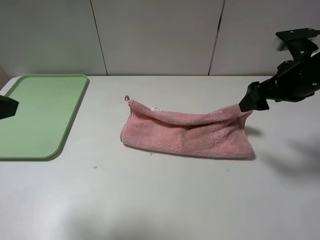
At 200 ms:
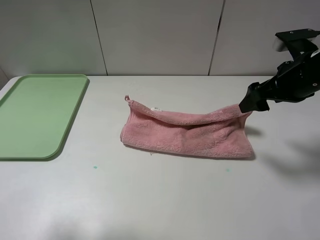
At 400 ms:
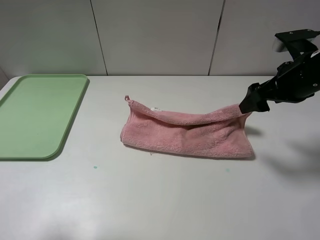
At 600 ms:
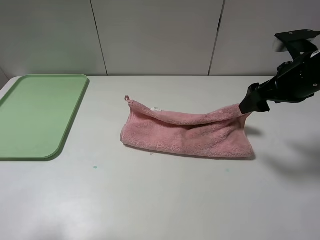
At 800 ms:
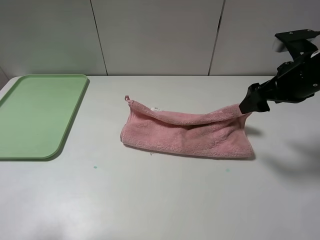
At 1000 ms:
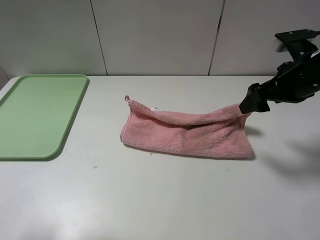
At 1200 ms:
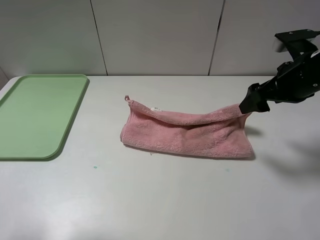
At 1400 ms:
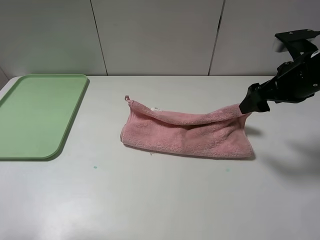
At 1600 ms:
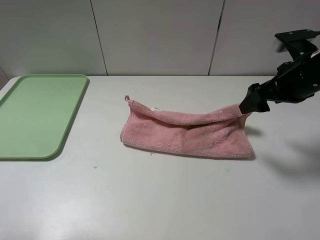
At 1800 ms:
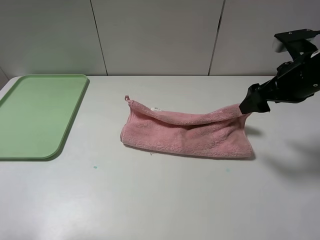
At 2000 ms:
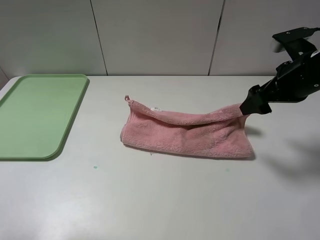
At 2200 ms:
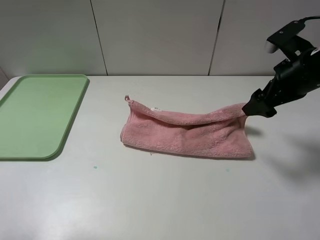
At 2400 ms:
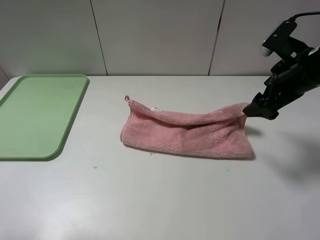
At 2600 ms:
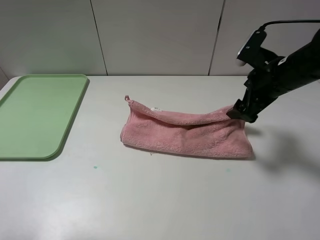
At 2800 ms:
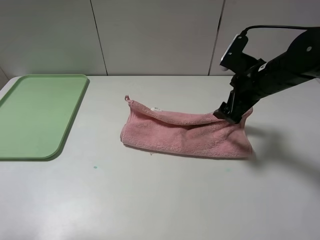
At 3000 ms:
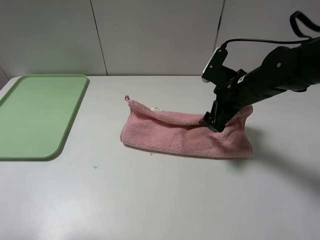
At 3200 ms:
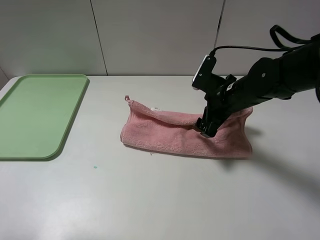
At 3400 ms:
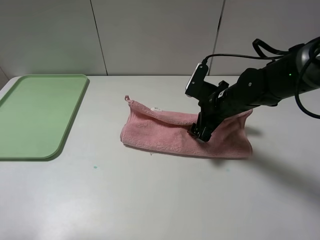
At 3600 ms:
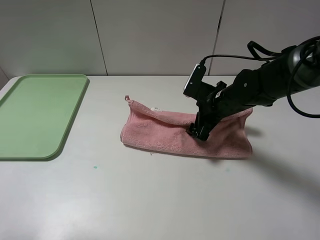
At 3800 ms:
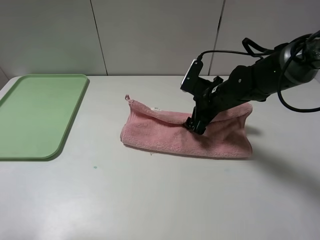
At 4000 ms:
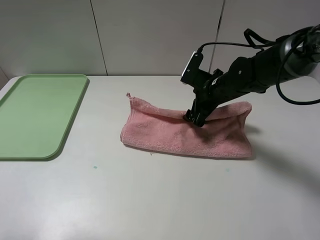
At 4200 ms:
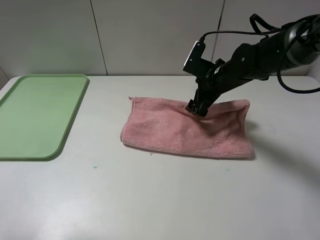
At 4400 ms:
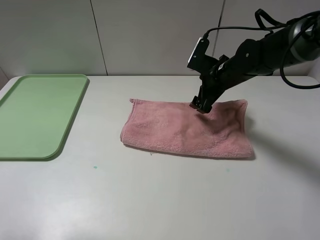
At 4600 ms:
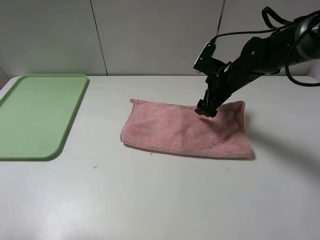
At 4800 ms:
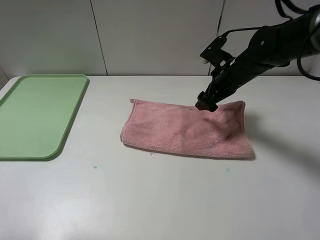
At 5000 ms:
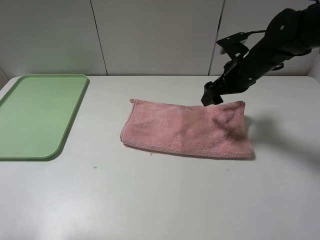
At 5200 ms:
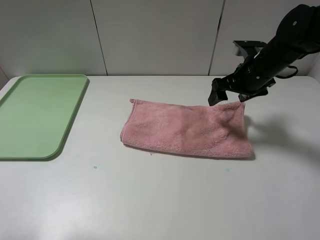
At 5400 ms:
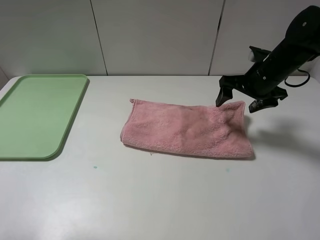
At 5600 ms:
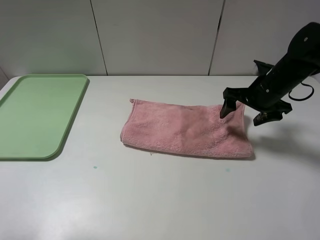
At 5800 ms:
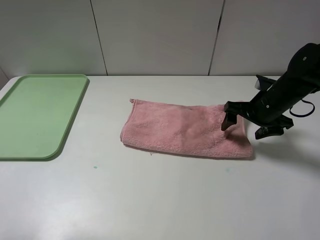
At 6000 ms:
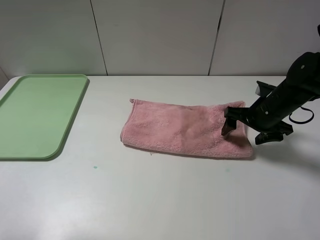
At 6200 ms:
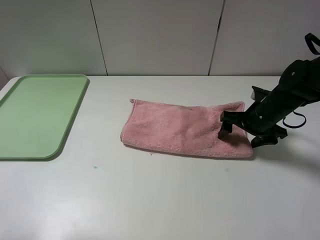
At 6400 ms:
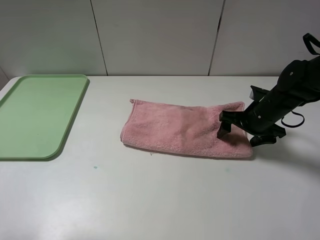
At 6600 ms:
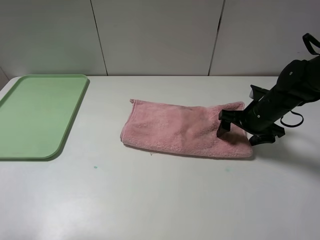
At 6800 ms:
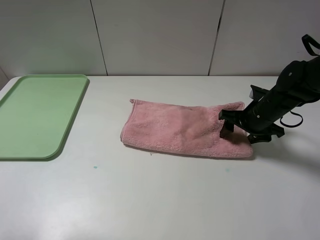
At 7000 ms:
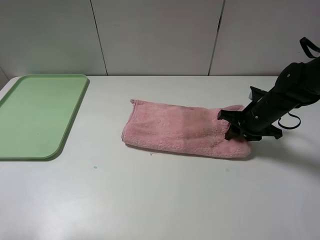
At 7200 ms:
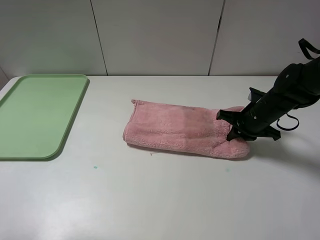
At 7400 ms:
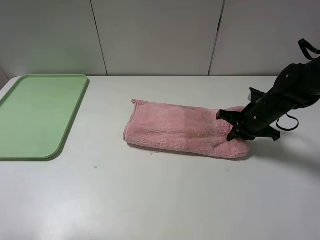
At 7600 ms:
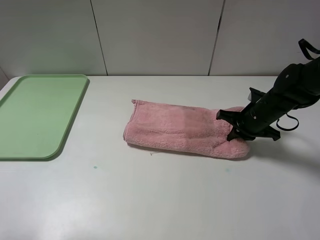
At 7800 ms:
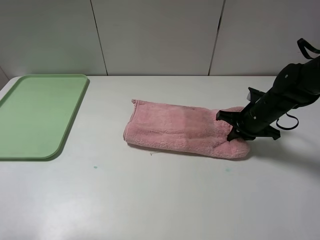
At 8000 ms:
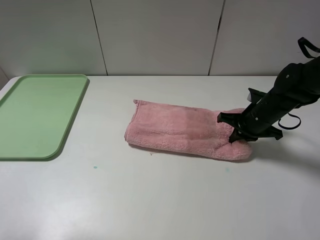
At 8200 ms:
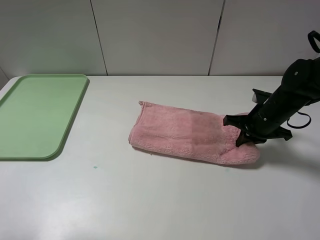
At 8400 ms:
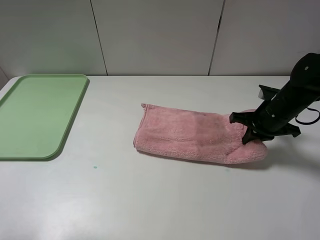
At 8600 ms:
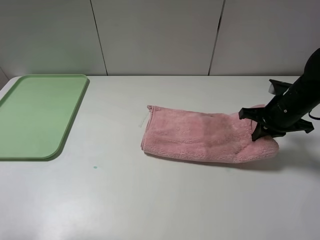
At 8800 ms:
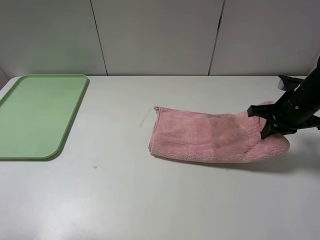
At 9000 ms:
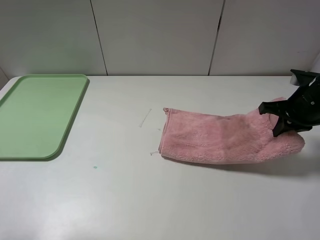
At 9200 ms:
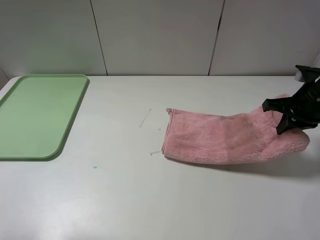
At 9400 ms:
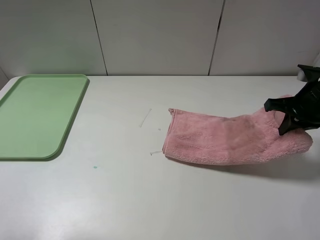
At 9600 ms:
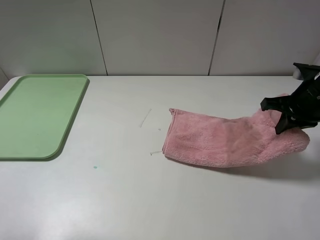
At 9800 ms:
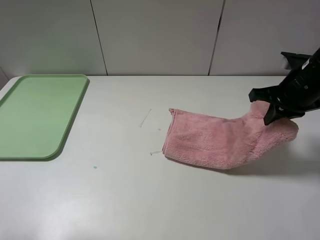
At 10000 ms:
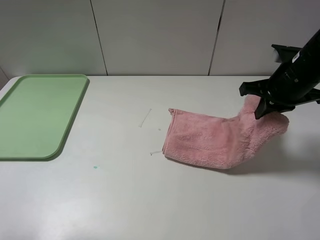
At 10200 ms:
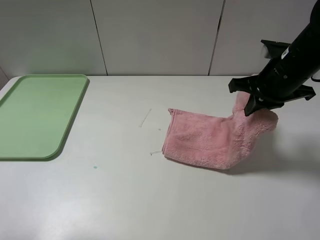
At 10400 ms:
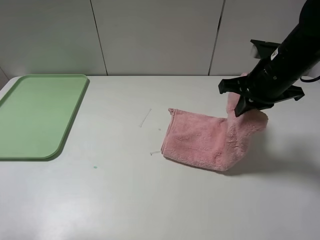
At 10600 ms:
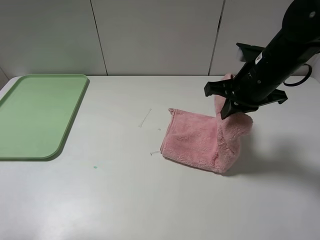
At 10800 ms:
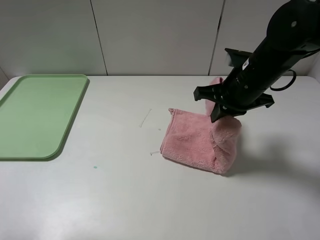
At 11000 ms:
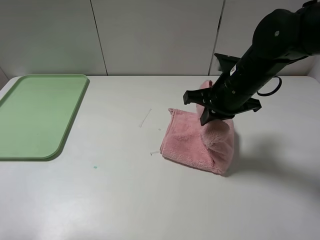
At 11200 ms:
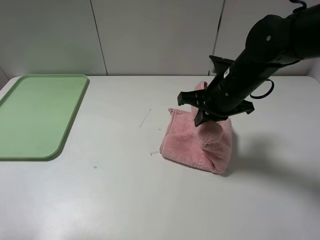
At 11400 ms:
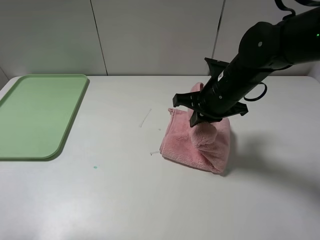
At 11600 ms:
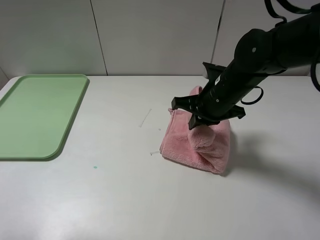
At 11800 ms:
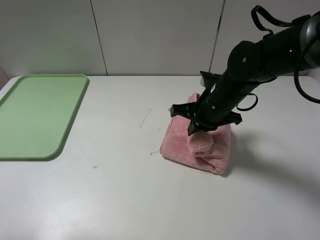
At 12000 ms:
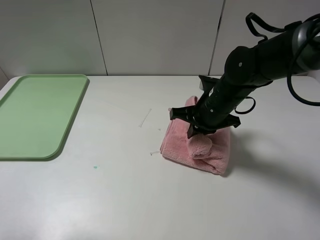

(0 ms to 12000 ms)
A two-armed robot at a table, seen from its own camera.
Step, 0 ms - 4600 ms: Fold the pink towel upwards.
0 ms - 1600 ms: The left gripper moves to the left, about 5 cm.
1600 ms - 3000 ms: The right gripper moves to the left and downward, about 10 cm.
3000 ms - 4400 ms: The right gripper travels forward by some 5 cm.
4400 ms - 6000 ms: The right gripper shifts roughly 10 cm to the right and backward.
6000 ms - 7600 ms: The right gripper closes up.
7600 ms - 9000 ms: The right gripper goes some 10 cm upward and to the right.
9000 ms - 10400 ms: The right gripper goes some 10 cm to the left and upward.
10400 ms - 12000 ms: The right gripper is displaced downward and to the left by about 10 cm.

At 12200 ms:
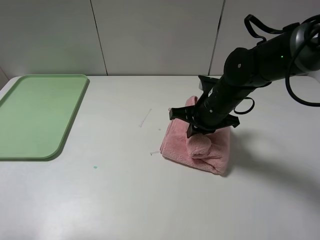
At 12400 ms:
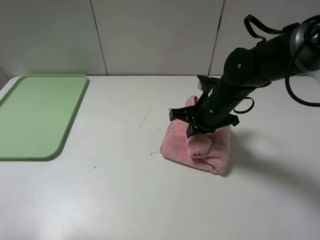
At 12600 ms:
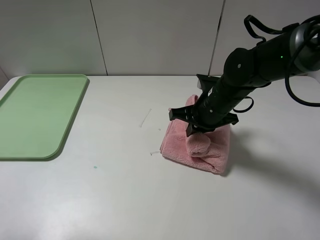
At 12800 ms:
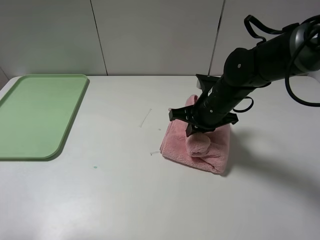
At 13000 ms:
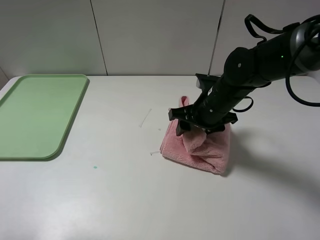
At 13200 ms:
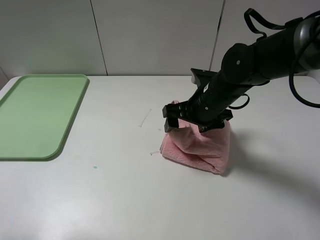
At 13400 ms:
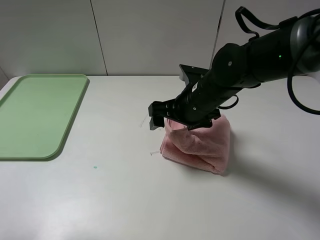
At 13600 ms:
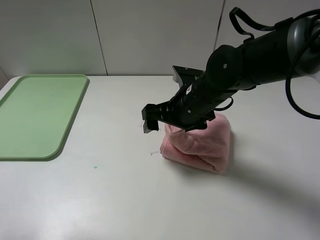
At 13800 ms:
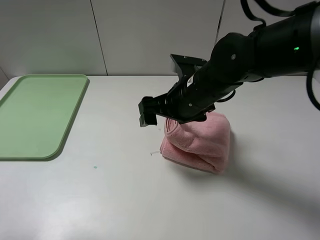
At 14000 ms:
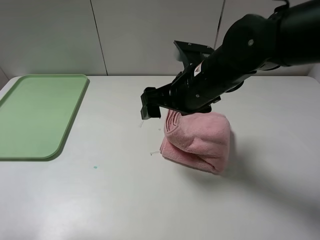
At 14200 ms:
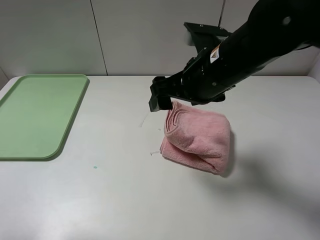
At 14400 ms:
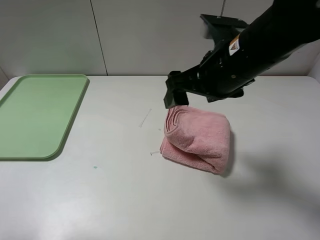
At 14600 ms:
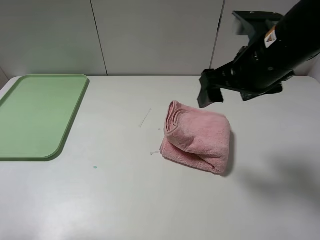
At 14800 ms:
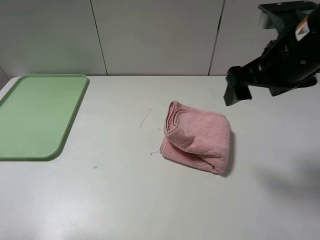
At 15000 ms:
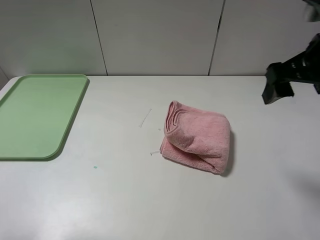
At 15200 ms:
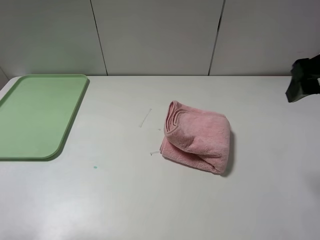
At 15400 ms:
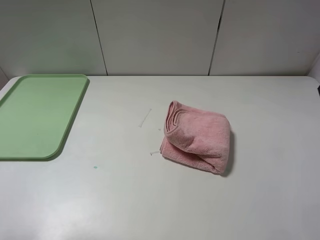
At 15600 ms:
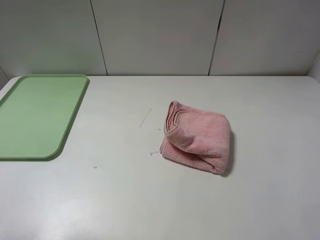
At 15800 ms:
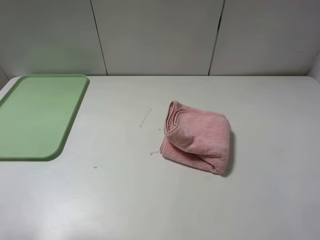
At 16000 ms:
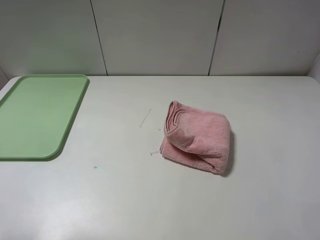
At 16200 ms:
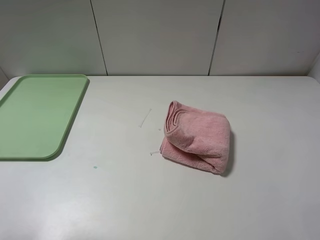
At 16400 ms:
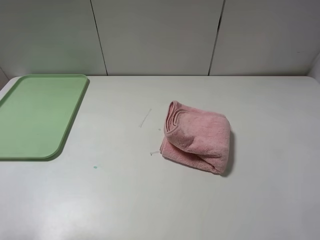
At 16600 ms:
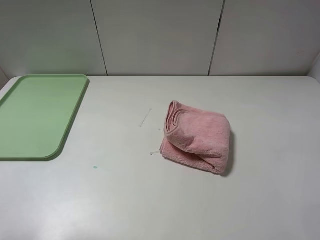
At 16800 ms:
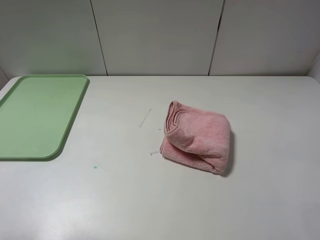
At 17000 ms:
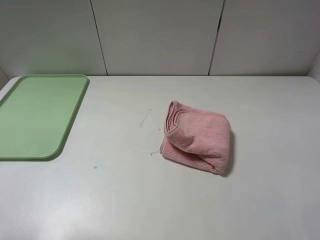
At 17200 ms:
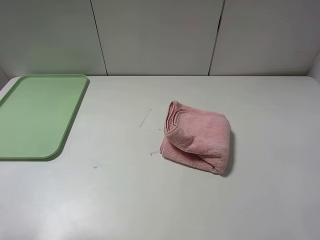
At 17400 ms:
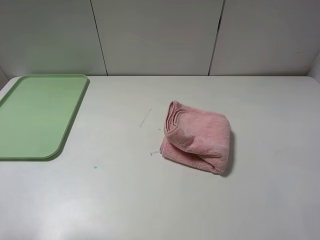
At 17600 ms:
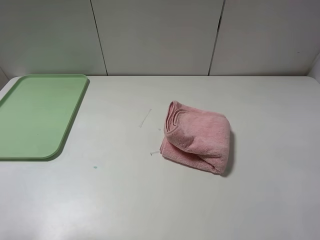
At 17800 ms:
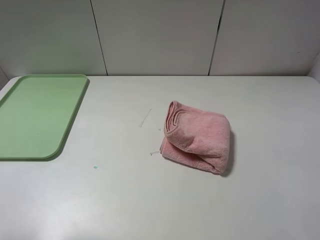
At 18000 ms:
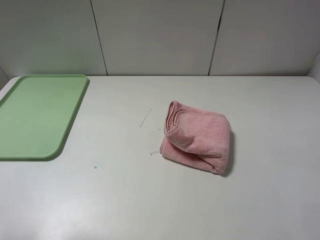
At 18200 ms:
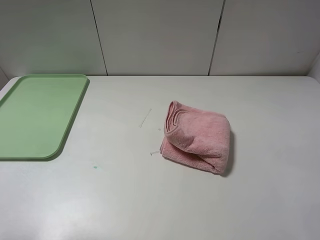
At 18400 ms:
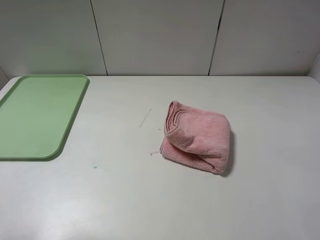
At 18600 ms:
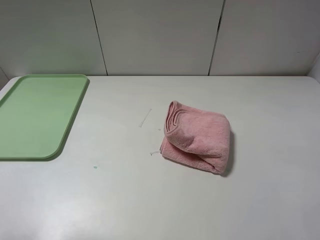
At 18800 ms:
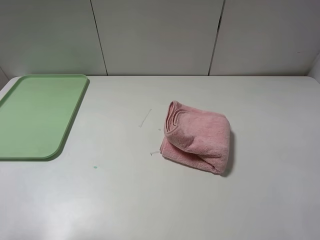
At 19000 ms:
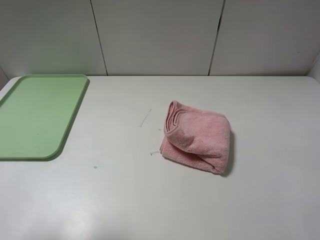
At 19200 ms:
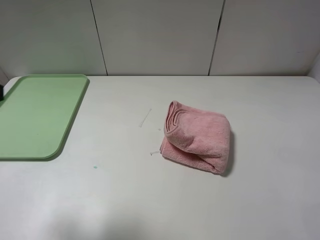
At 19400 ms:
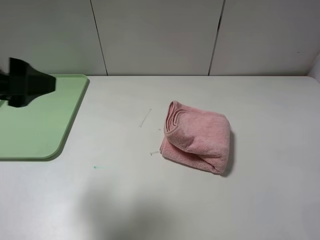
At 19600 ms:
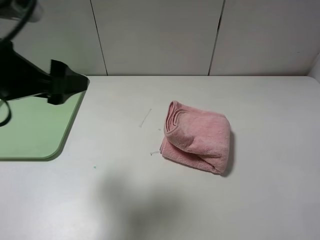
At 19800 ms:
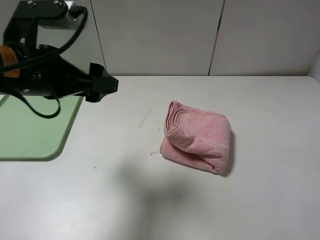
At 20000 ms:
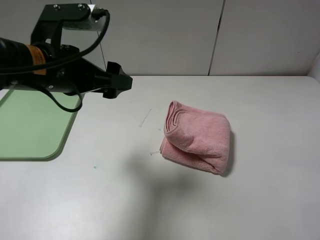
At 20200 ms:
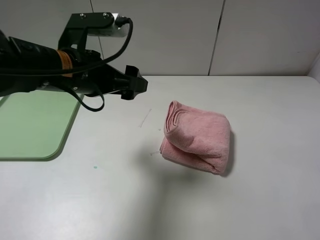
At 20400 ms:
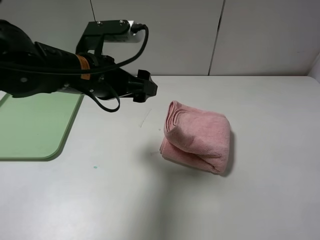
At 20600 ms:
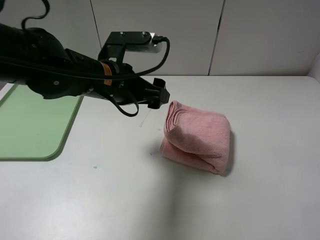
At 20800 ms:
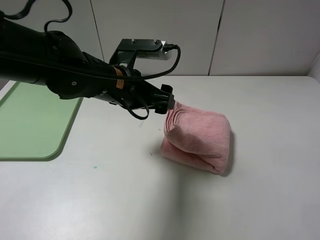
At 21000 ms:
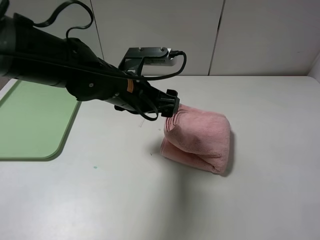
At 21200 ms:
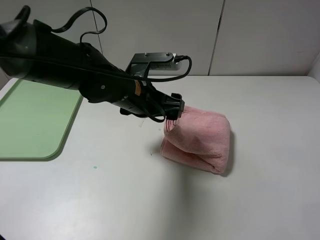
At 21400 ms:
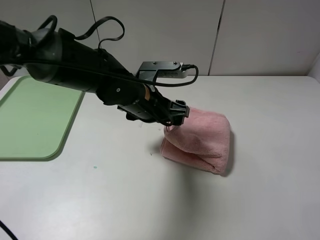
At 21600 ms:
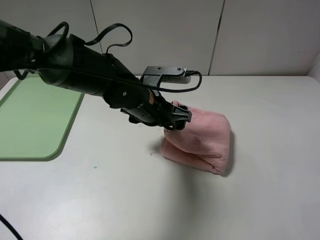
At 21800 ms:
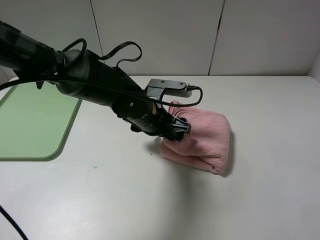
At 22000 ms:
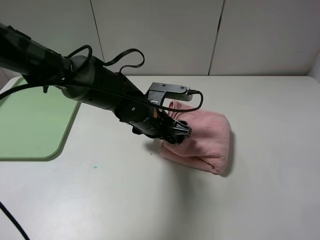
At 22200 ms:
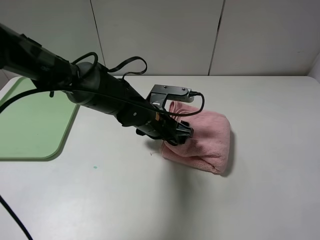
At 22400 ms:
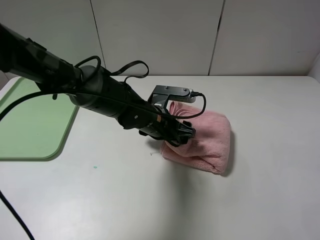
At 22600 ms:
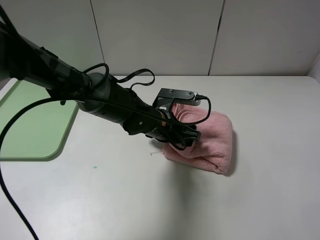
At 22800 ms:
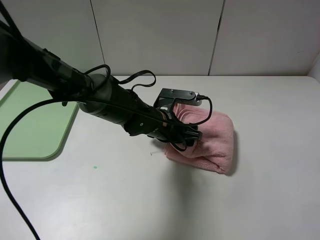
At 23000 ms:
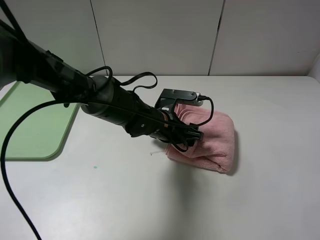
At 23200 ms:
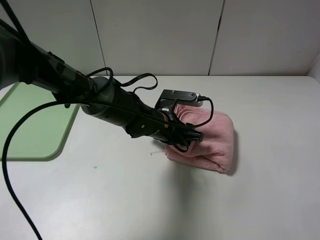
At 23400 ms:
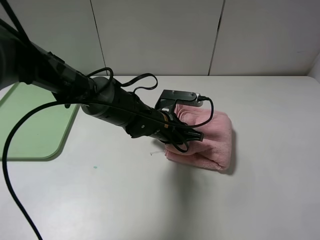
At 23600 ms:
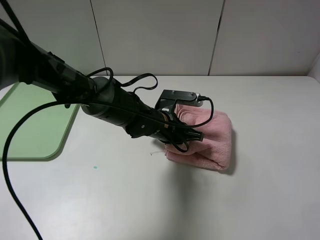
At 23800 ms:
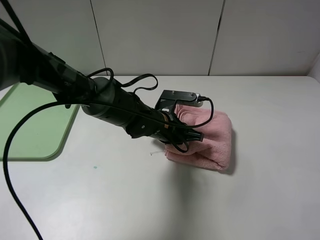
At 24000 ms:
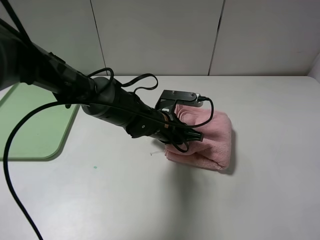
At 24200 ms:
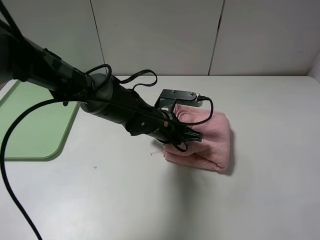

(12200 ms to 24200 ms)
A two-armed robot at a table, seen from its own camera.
12200 ms - 13800 ms: The right gripper goes roughly 10 cm upward and to the left, and opens.
13800 ms - 15200 ms: The right gripper is displaced to the right and upward by about 25 cm.
15200 ms - 16600 ms: The right gripper is displaced backward by approximately 15 cm.
18200 ms - 19800 ms: The left gripper is displaced to the right and forward by roughly 20 cm.
19800 ms - 21200 ms: The left gripper travels to the right, downward and forward by some 15 cm.
21200 ms - 22600 ms: The left gripper goes some 10 cm downward.
22600 ms - 24200 ms: The left gripper closes.
